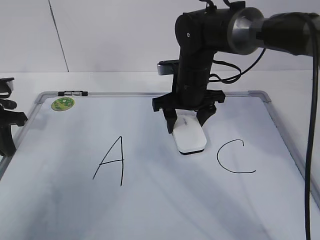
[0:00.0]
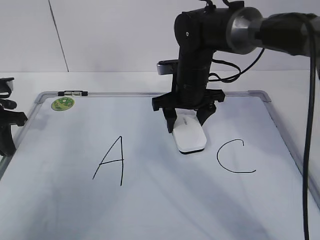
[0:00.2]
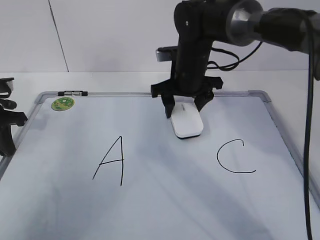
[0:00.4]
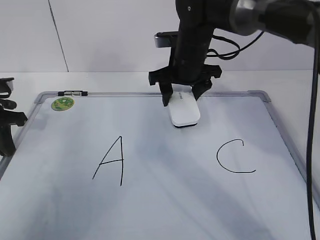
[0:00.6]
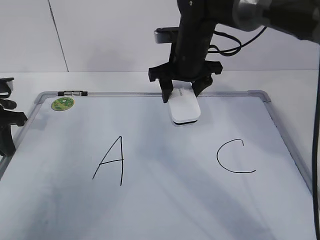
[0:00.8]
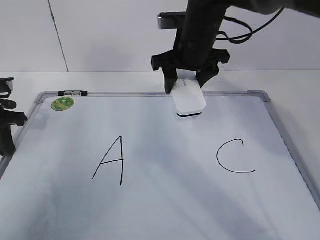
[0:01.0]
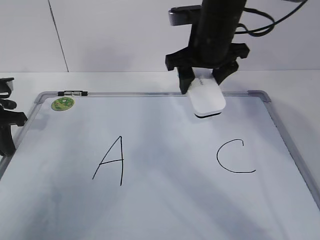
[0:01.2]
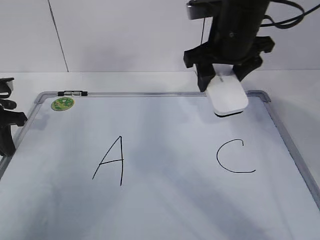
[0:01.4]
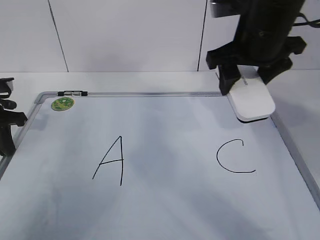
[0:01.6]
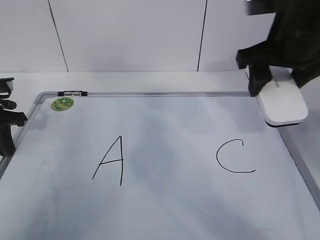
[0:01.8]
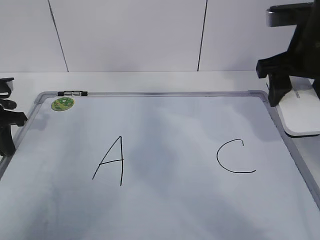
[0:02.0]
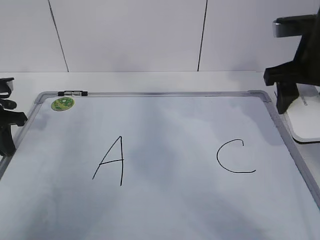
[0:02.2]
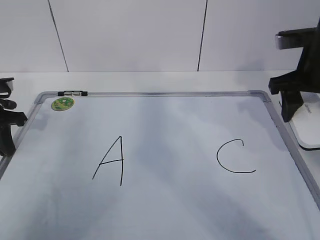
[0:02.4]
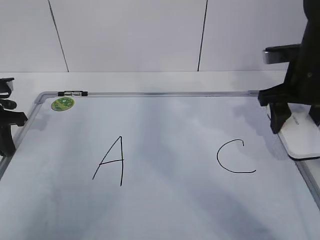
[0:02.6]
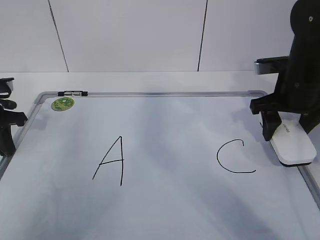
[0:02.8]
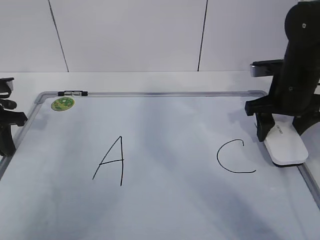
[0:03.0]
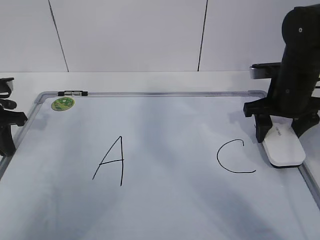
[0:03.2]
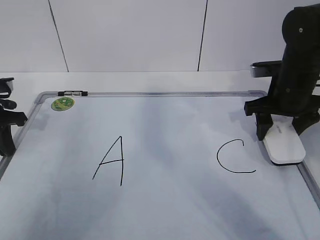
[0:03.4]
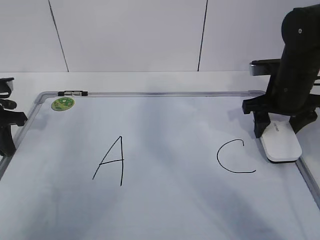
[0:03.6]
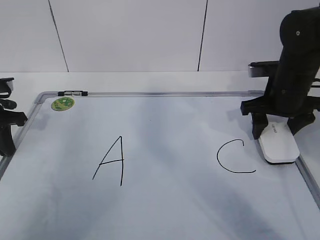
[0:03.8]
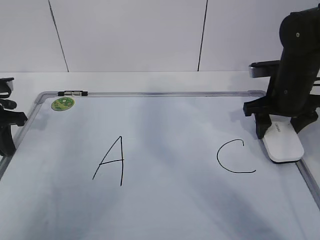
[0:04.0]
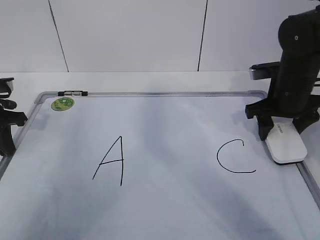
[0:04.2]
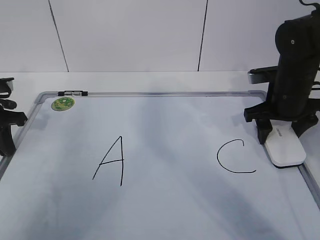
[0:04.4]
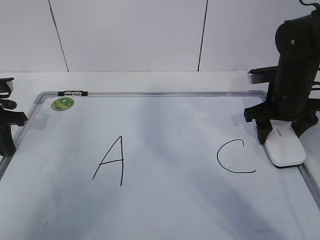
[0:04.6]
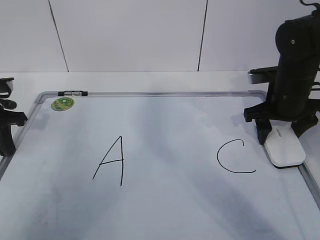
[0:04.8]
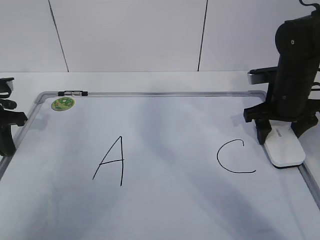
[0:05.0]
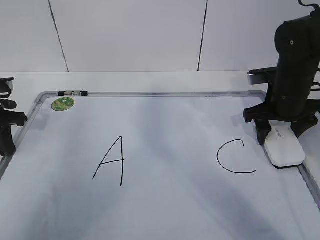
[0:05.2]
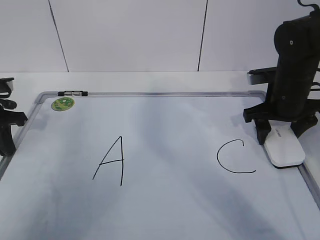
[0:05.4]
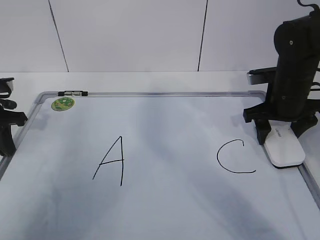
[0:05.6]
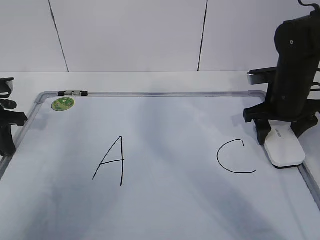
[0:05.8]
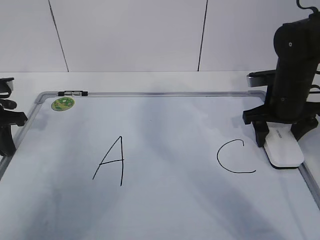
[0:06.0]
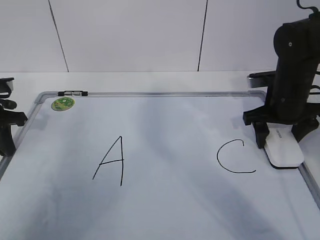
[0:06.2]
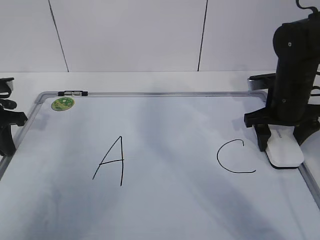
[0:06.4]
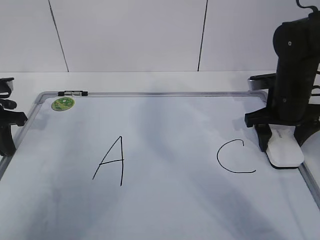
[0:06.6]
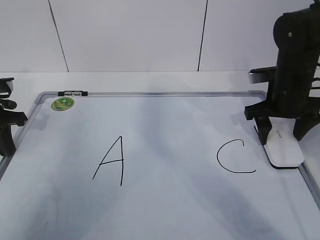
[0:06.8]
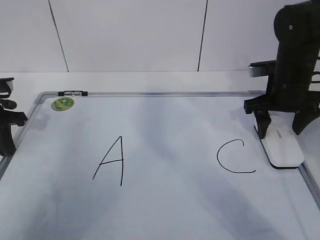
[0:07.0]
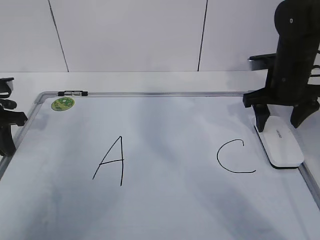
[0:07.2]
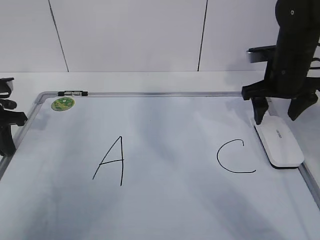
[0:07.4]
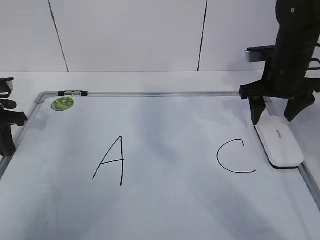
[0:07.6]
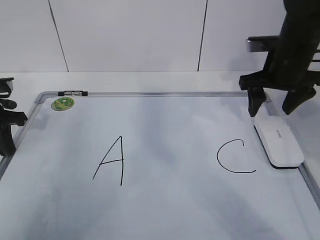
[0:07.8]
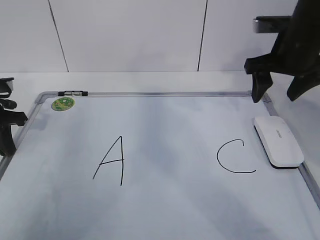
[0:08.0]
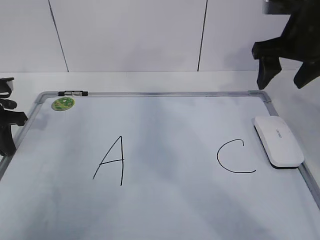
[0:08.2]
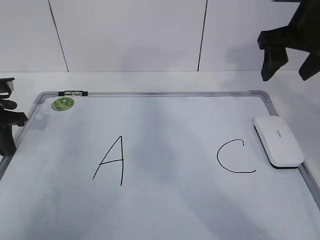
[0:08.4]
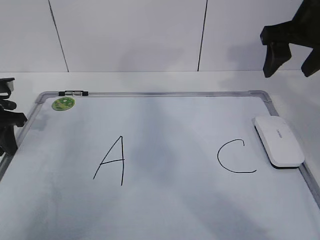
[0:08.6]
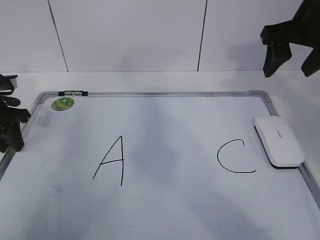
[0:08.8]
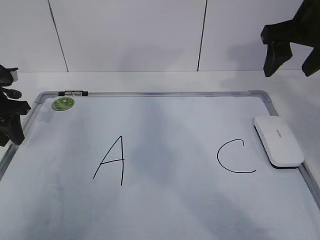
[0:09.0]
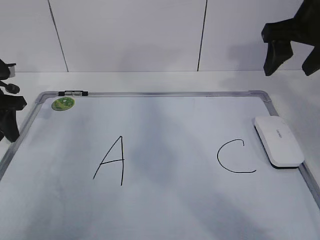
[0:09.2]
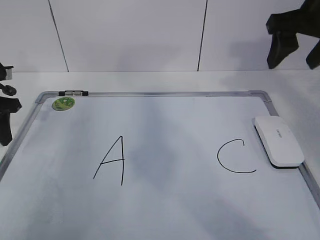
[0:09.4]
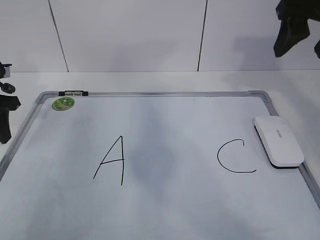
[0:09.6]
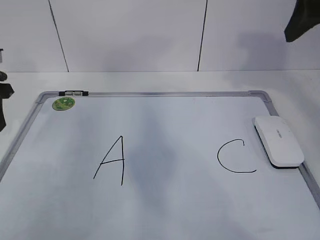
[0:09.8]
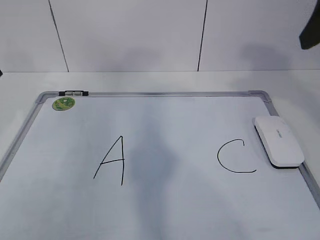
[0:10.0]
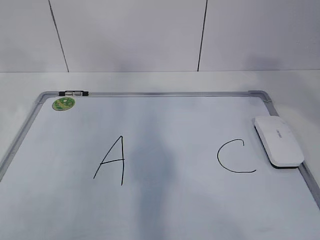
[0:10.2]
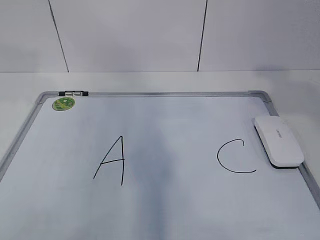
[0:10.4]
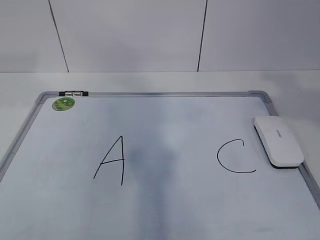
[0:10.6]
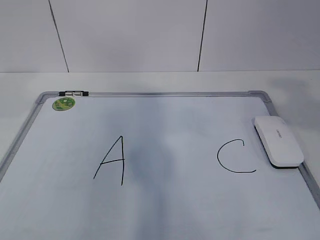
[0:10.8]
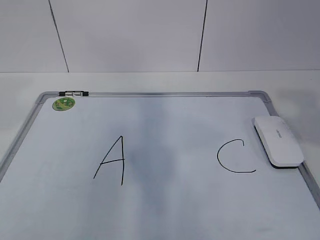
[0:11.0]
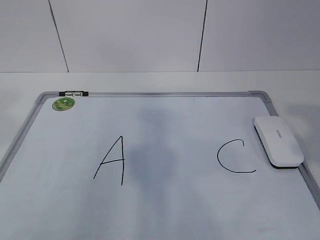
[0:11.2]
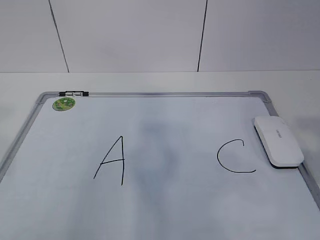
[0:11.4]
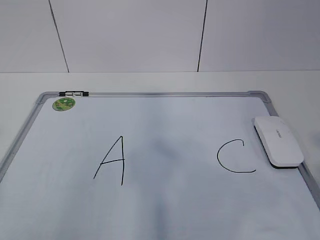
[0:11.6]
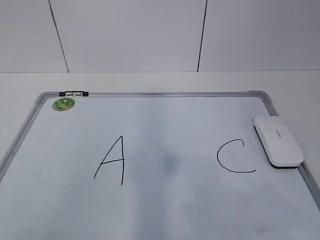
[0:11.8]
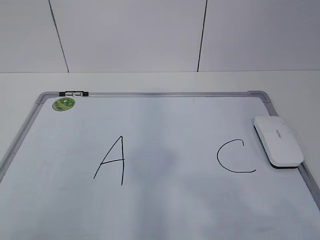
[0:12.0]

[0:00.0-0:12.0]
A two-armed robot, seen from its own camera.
Task of the whole recording: pick up the eraser on the blackboard and erase the letter "B".
0:00.0 to 0:01.6: The right gripper goes approximately 15 cm upward, backward and to the right.
0:01.6 to 0:03.0: The right gripper heads downward and to the right, covering about 15 cm.
0:03.0 to 0:04.4: The grippers stay close to where they were, moving slightly.
0:04.4 to 0:06.0: The right gripper opens.
0:06.0 to 0:07.6: The grippers stay close to where they were, moving slightly.
0:07.6 to 0:09.0: The left gripper opens. Meanwhile the right gripper travels upward by approximately 10 cm.
0:09.0 to 0:10.4: The right gripper heads backward and upward, covering roughly 20 cm, while the left gripper travels upward by some 15 cm.
0:10.4 to 0:12.0: The right gripper heads backward and downward, covering approximately 25 cm.

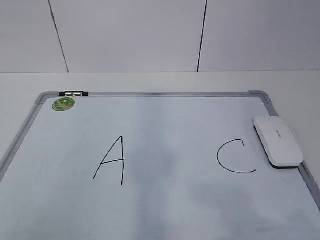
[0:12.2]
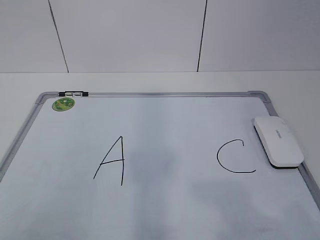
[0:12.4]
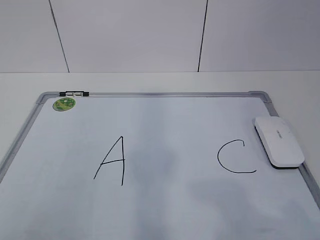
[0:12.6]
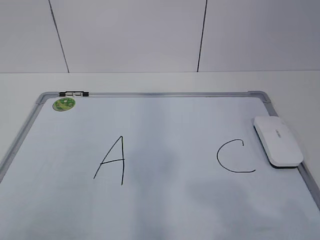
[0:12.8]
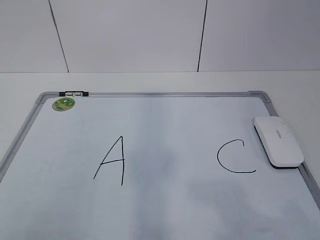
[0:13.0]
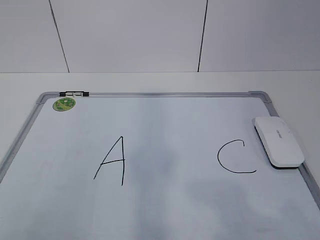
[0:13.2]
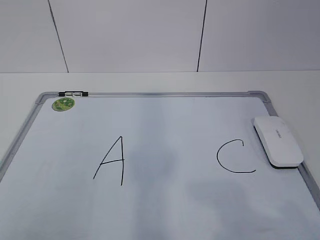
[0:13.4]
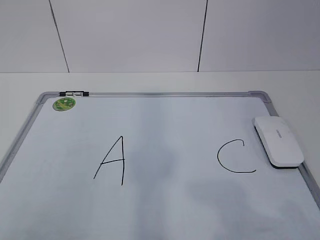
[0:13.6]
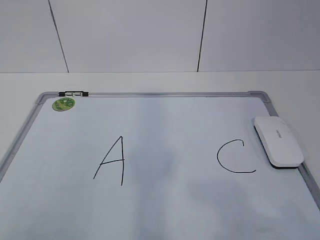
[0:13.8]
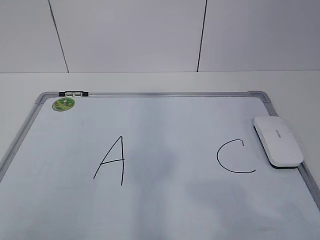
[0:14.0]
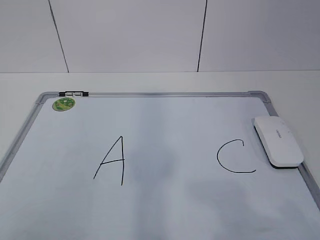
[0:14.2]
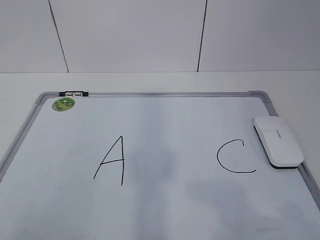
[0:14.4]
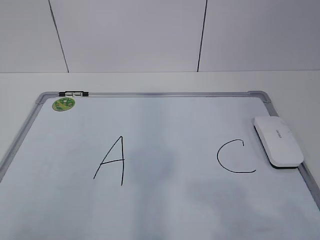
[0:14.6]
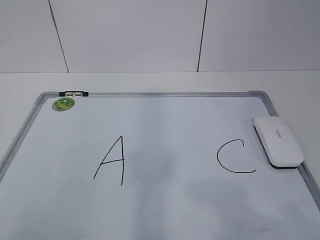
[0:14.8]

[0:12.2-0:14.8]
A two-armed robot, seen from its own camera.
Task of the whole recording: pick up the eraser on the blackboard and erase the letter "B".
0:12.2 to 0:13.4: Both grippers stay about where they are.
0:13.4 to 0:14.8: Neither gripper changes place.

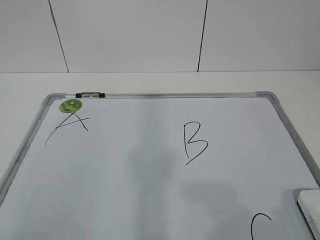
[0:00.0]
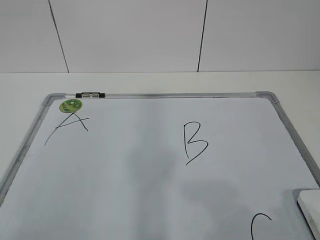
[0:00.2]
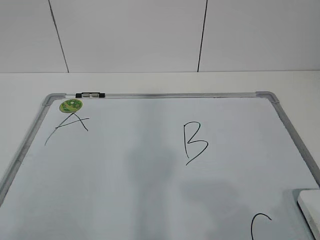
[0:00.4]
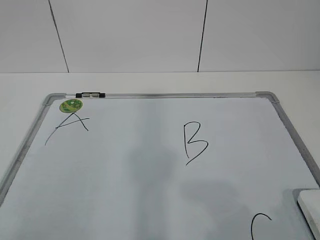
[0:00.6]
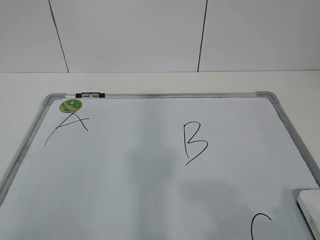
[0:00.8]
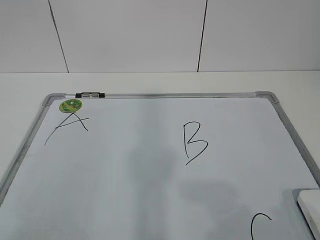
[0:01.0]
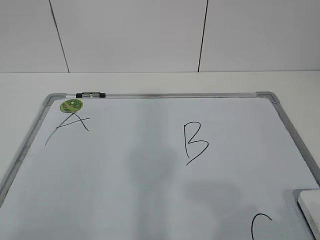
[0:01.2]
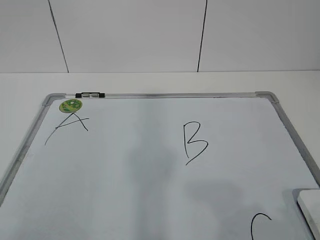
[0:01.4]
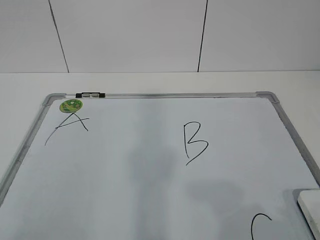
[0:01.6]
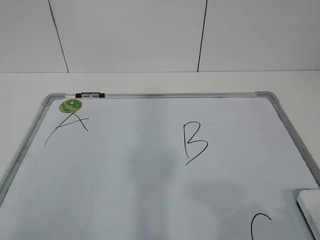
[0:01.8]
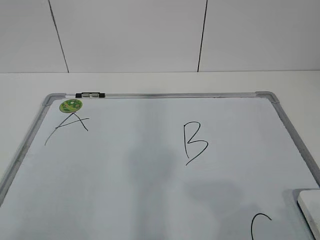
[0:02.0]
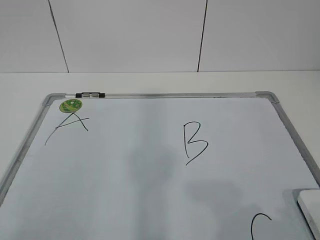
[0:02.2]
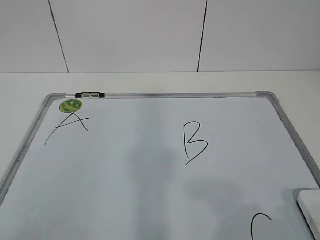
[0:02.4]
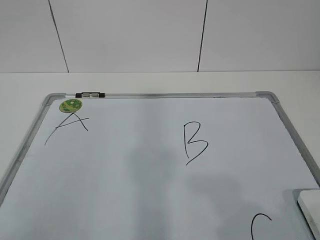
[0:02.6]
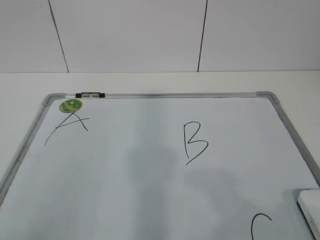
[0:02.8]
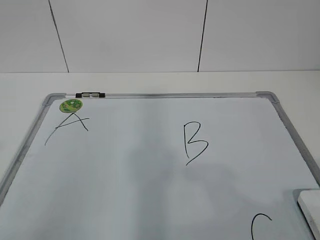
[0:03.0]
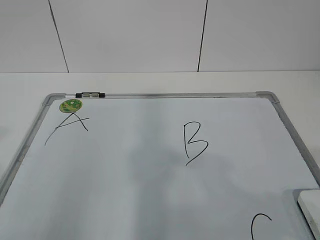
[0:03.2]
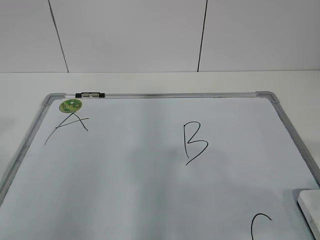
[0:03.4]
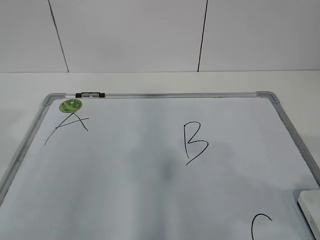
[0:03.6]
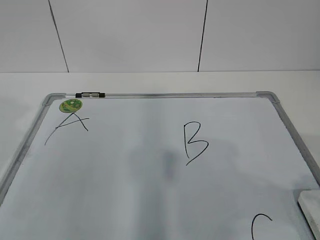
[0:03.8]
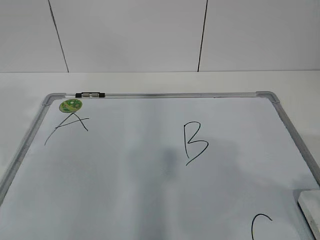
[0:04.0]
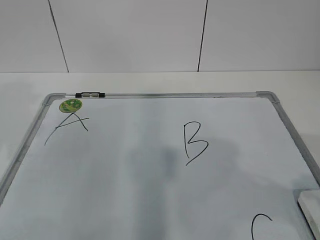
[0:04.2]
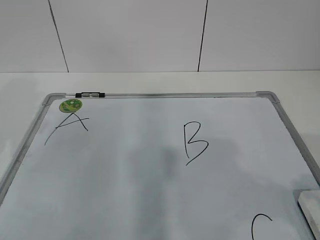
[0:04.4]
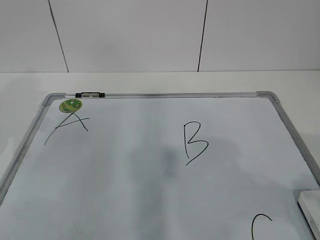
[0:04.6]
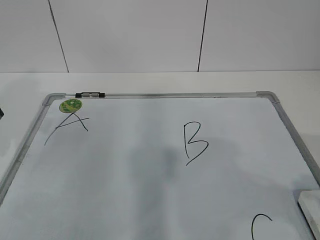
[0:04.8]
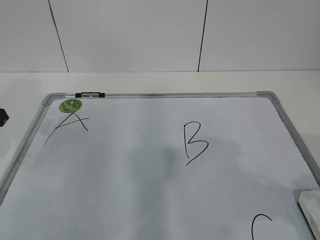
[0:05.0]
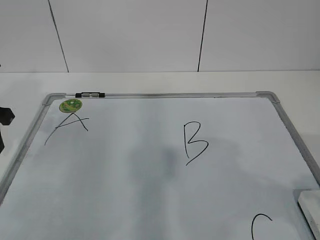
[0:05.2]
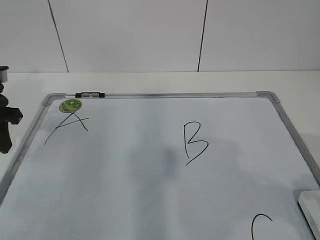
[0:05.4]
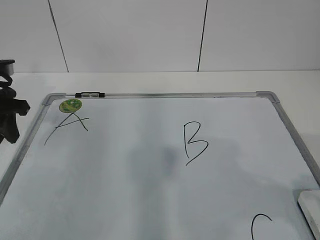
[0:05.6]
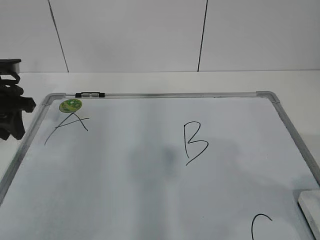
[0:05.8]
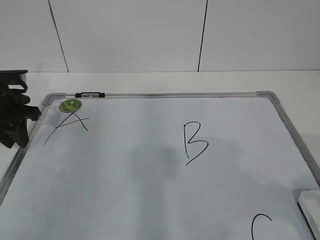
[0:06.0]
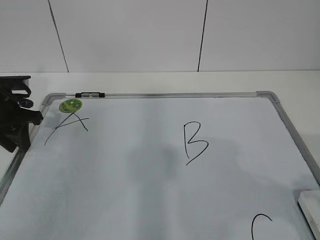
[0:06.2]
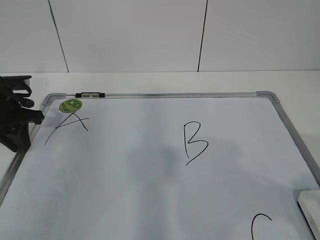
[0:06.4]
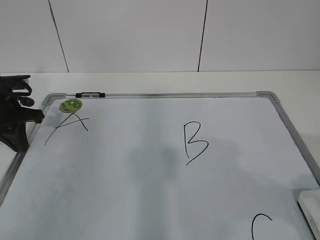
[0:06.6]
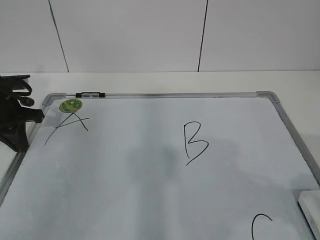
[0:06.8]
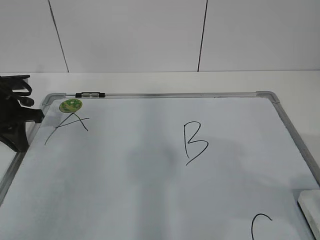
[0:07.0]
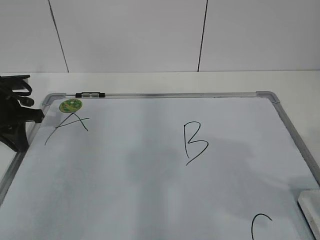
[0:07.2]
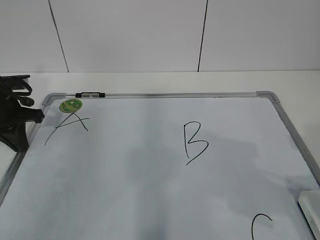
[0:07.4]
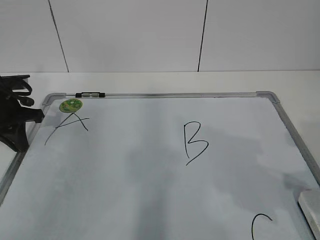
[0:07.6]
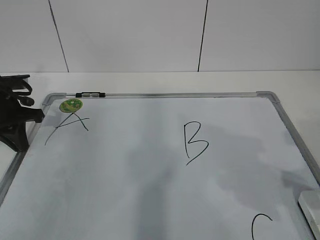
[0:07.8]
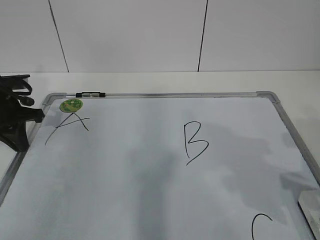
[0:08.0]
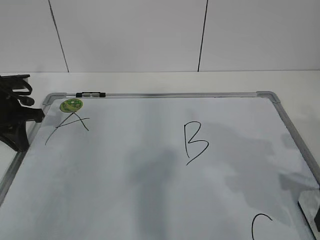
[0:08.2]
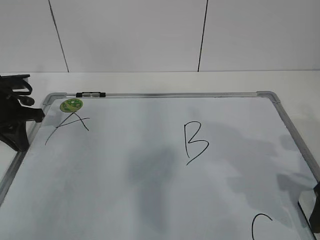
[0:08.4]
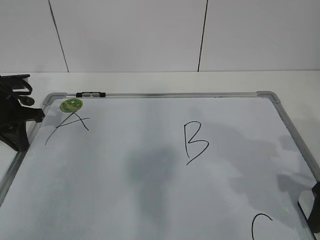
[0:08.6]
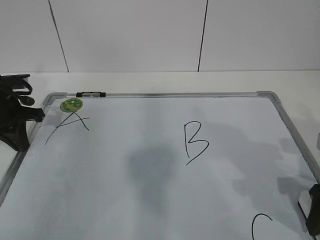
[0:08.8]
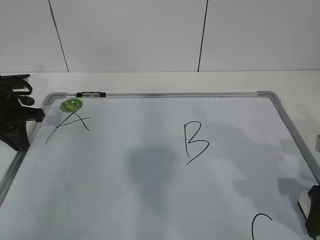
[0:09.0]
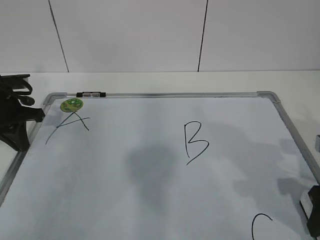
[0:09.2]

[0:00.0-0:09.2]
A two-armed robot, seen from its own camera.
Task of the whole recording: pick up the eraser on the blackboard and erase the letter "B".
Step, 0:00.0 to 0:05.4: Hold the drawing board steady with your left hand.
Step, 0:05.6 to 0:07.6: Grab the eraser with your right hand.
0:04.6 to 0:06.2: The left gripper moves downward and forward, roughly 15 cm.
0:06.2 to 0:07.6: The left gripper closes up.
0:07.6 to 0:09.2: The right gripper heads downward, covering approximately 5 cm, and closes up.
